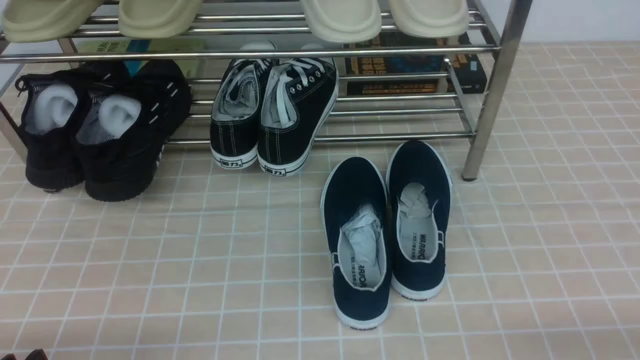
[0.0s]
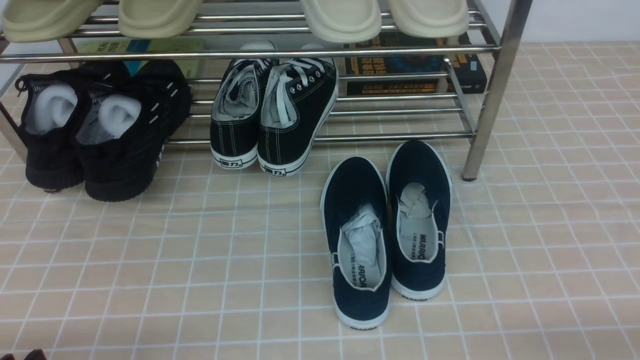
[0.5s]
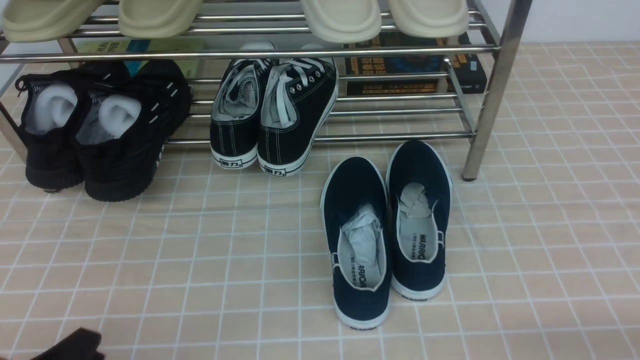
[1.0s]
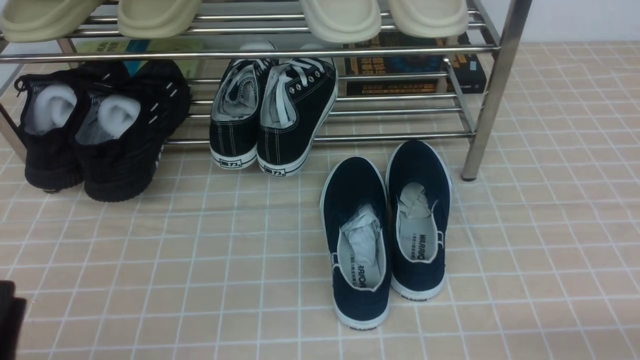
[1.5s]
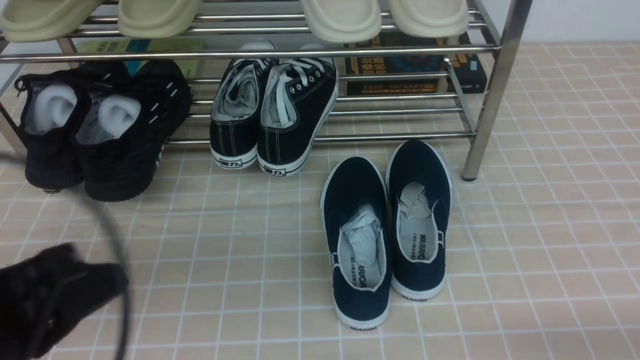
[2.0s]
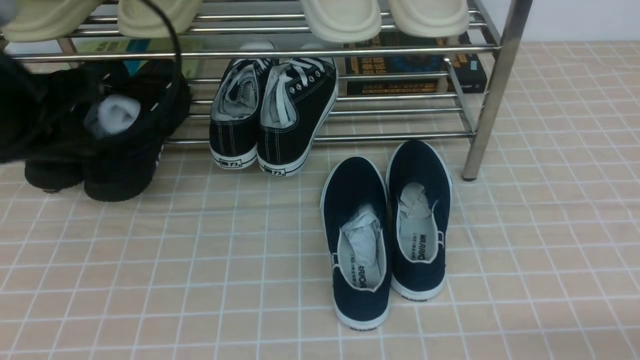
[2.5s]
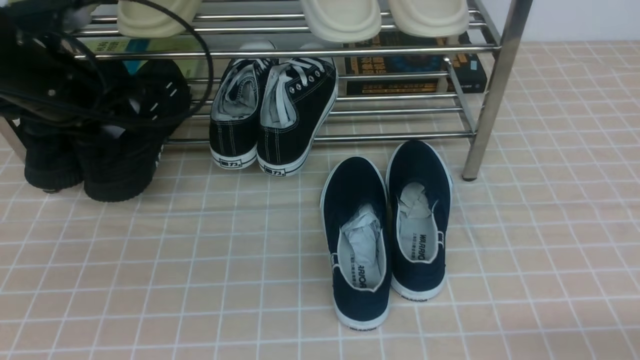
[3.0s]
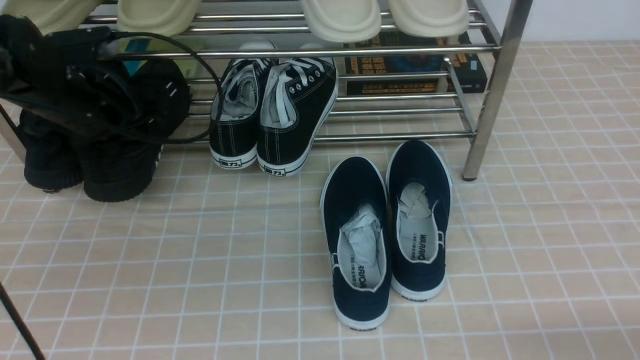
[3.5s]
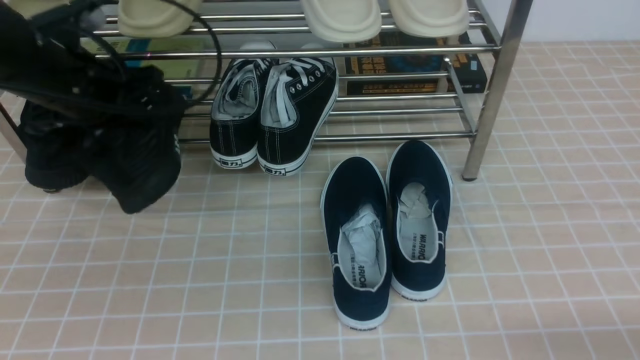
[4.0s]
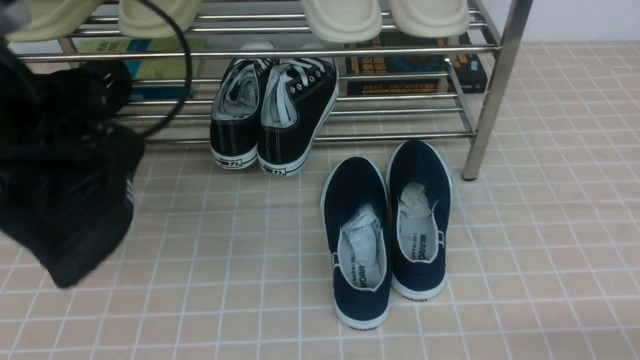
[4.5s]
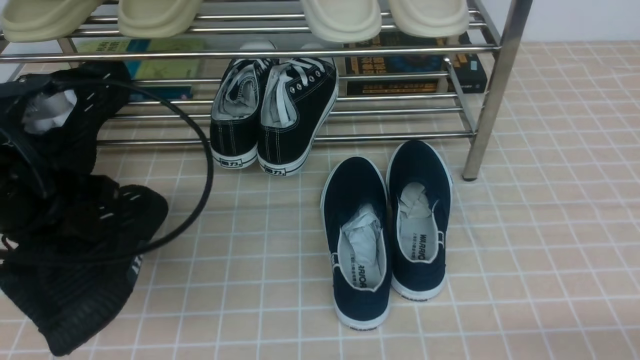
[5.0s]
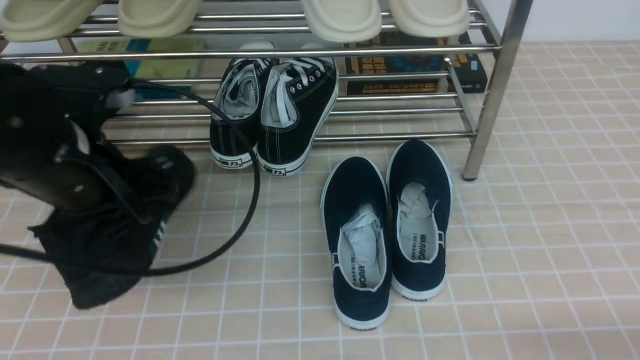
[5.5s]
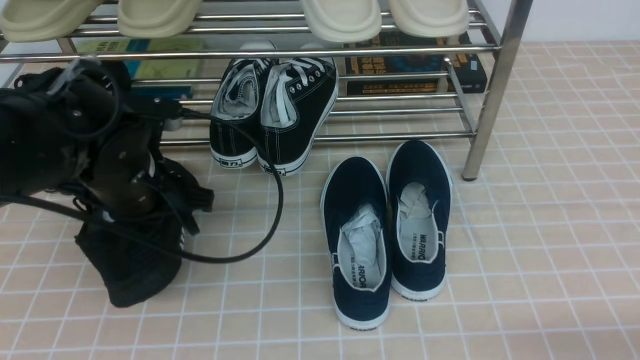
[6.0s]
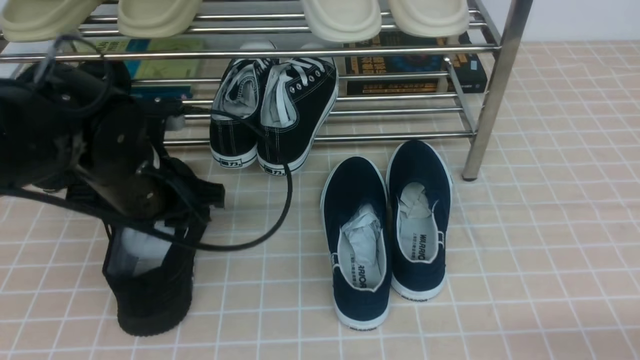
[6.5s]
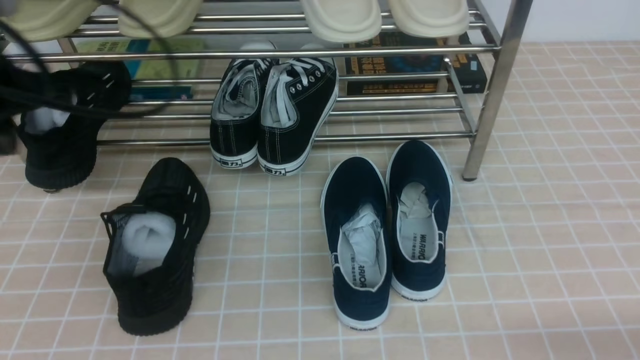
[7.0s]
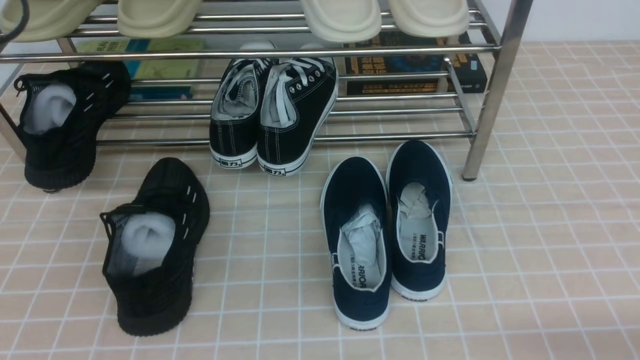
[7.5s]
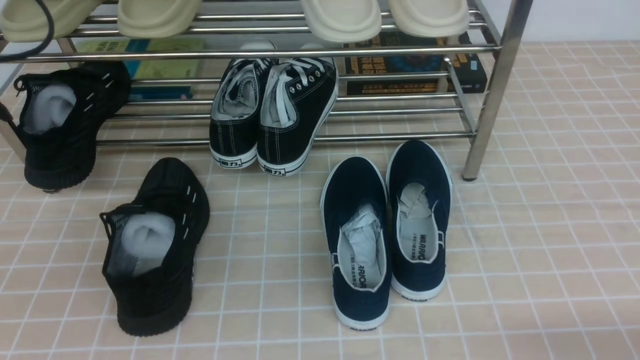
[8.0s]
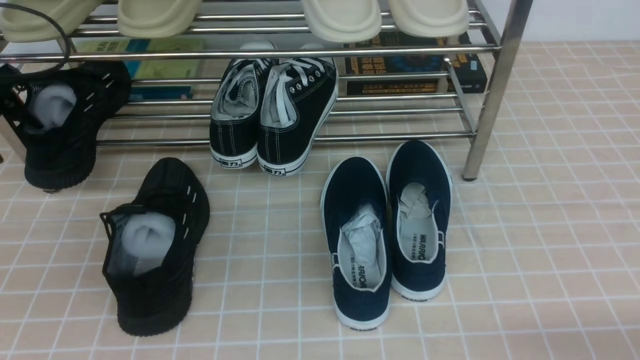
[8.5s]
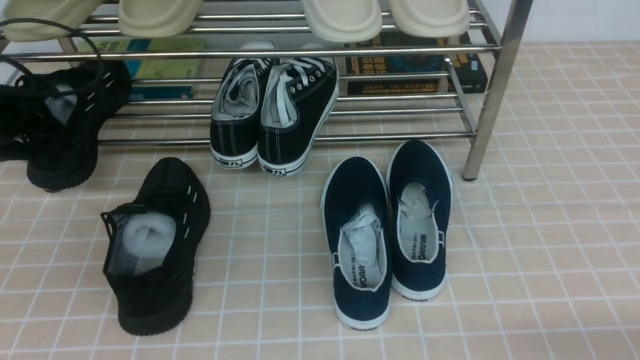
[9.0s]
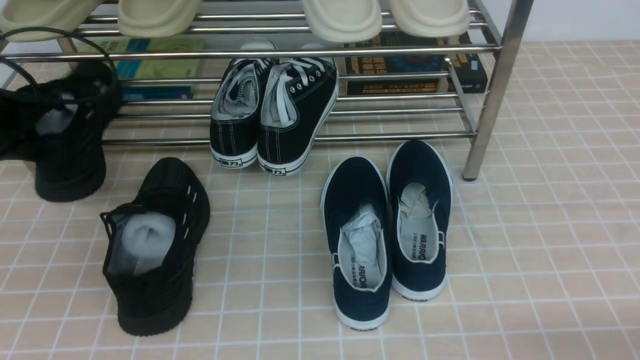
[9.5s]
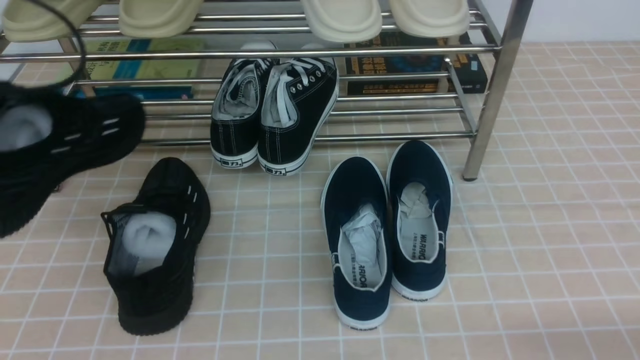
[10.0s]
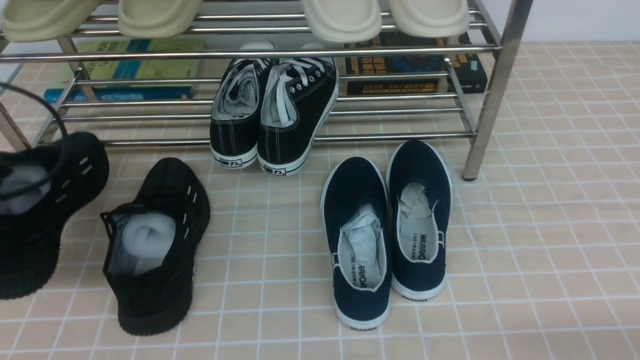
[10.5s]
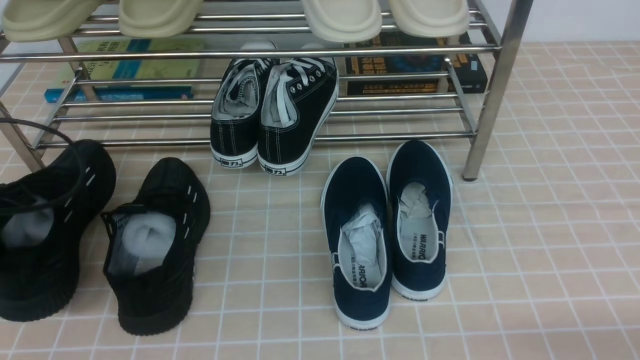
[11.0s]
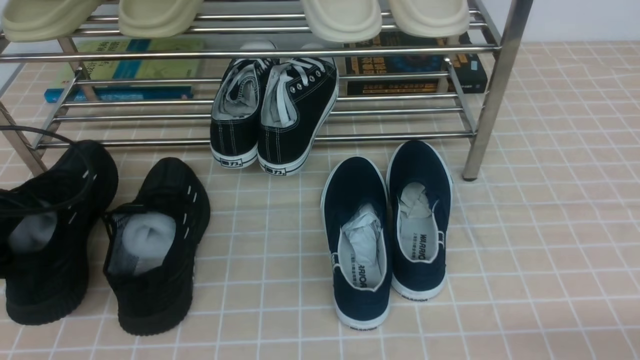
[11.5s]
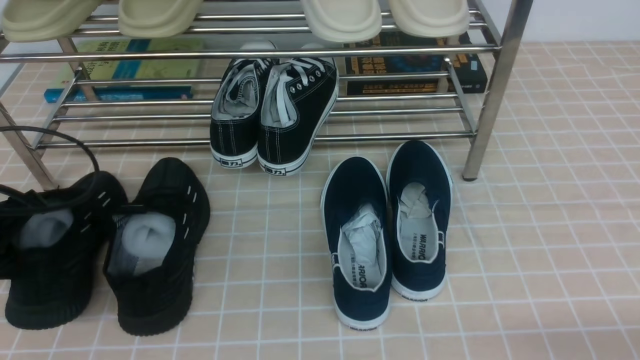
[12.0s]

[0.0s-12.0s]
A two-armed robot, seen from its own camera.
Step, 0.0s to 3.5s: use the left arm to clamp a shoe on the left side of the shoe rack.
Step, 4.0s to 6.5s: Use your left arm to remove the clamped shoe from the shoe rack and put it down.
Step, 7.0s to 9.0s: use the left arm to clamp a shoe on the left side of the shoe rack.
0.0s to 2.0s: The left gripper goes roughly 15 cm upward and forward, and closes its fingers.
2.0s to 4.0s: The left gripper shifts approximately 25 cm forward, and opens, then closes again.
4.0s to 6.0s: The left gripper goes roughly 10 cm to the right, downward and backward.
6.0s to 8.0s: The left gripper is displaced to the left and upward by roughly 20 cm, and opens up.
8.0s to 10.0s: The left gripper travels backward by some 5 cm, and closes.
10.0s to 12.0s: The left gripper is displaced downward by approximately 10 cm.

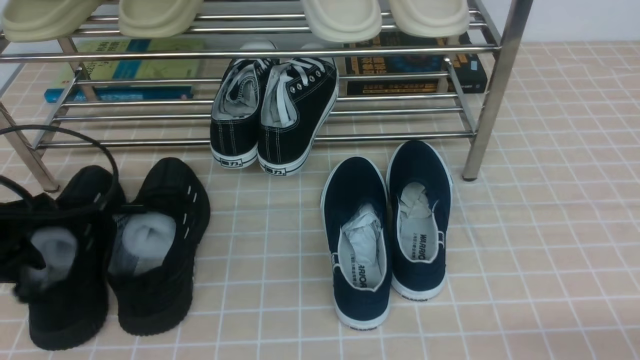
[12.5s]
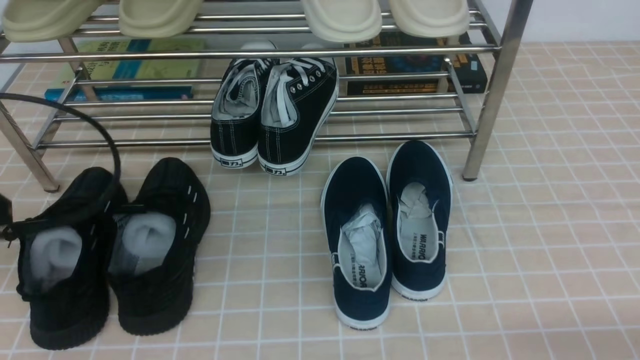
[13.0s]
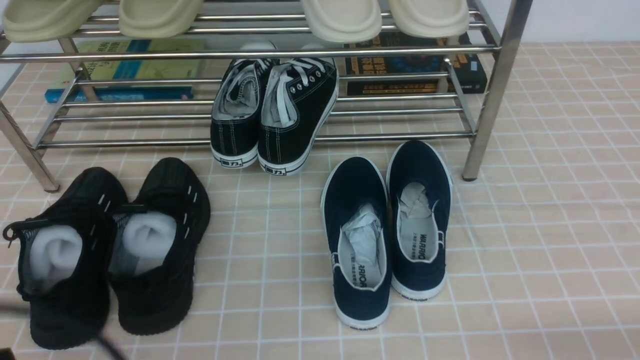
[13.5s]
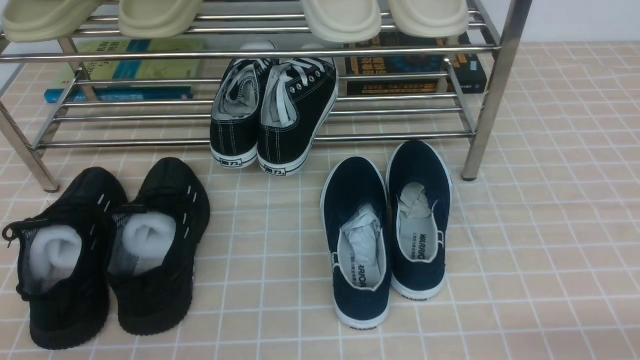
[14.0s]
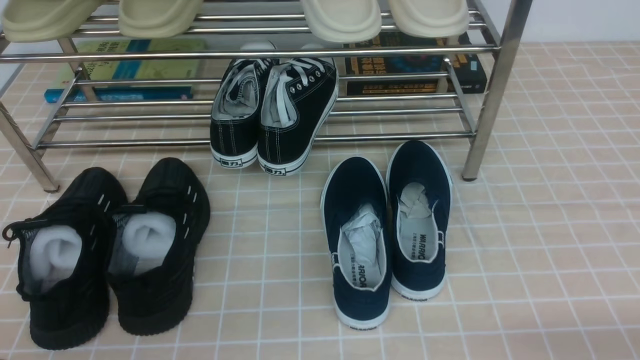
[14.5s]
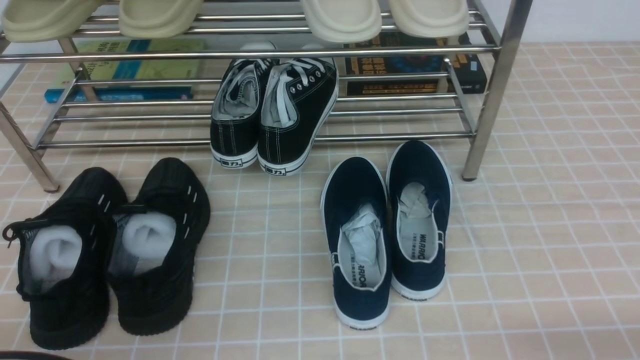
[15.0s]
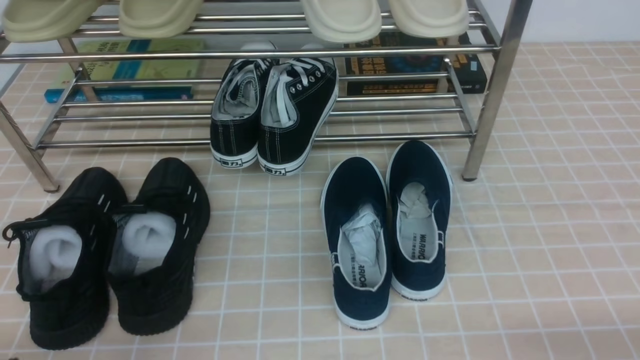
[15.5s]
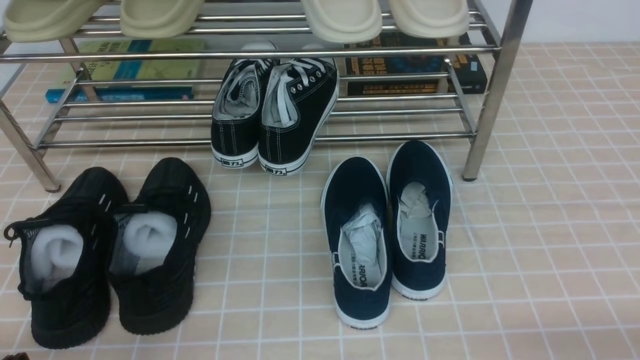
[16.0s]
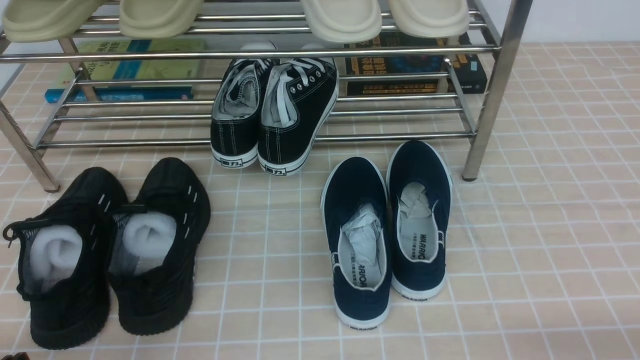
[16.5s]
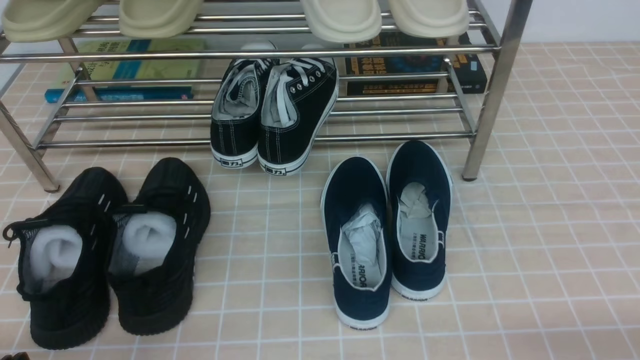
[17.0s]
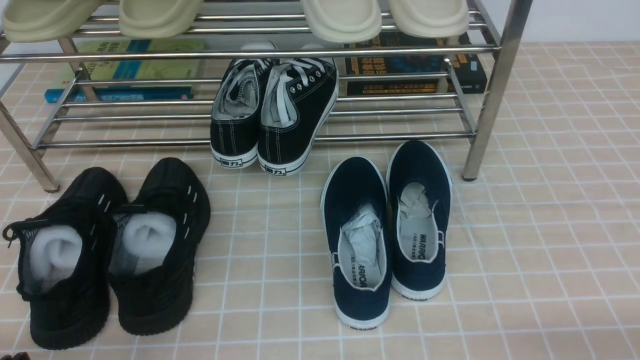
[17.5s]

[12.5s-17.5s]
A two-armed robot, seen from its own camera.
12.5s to 15.0s: The left gripper heads backward, covering roughly 20 cm.

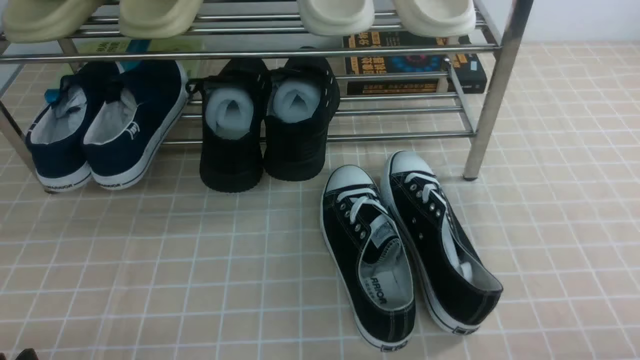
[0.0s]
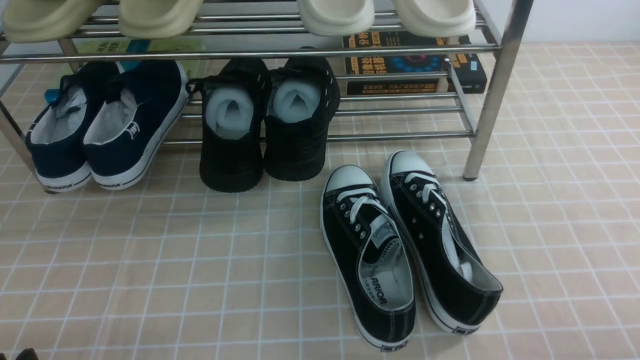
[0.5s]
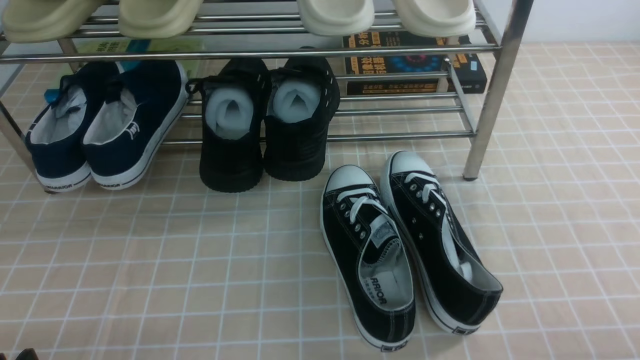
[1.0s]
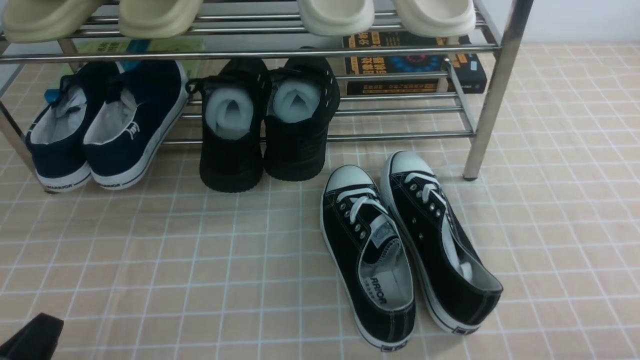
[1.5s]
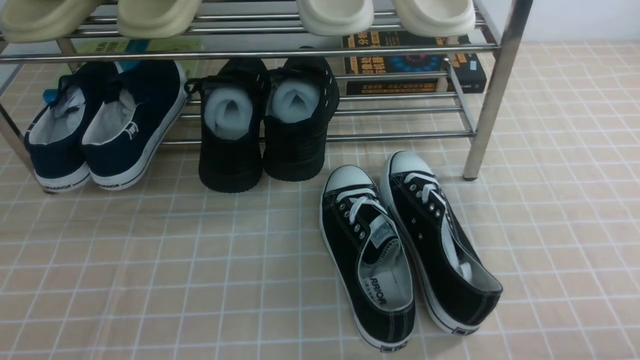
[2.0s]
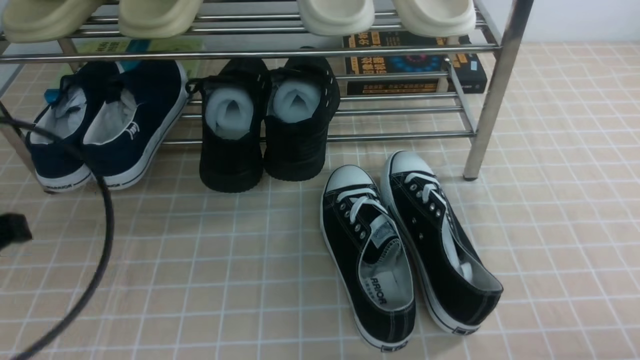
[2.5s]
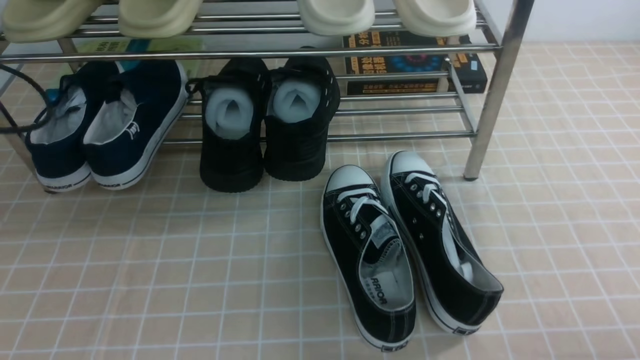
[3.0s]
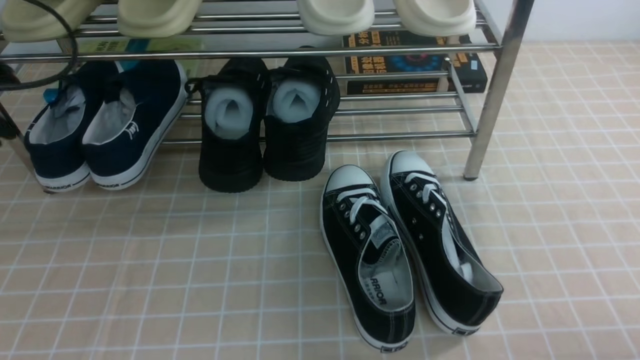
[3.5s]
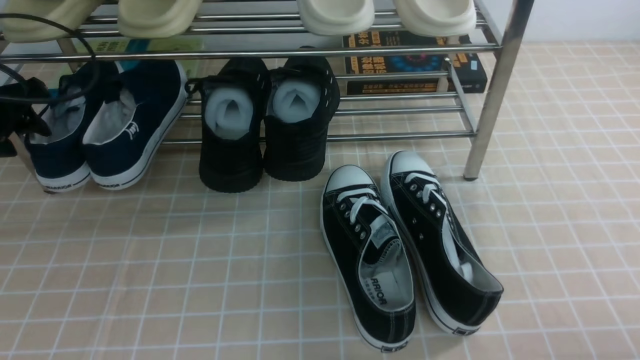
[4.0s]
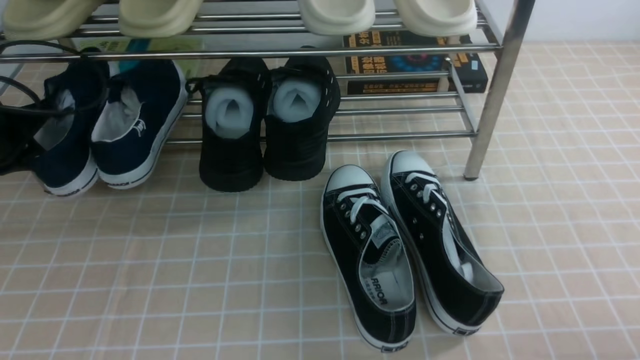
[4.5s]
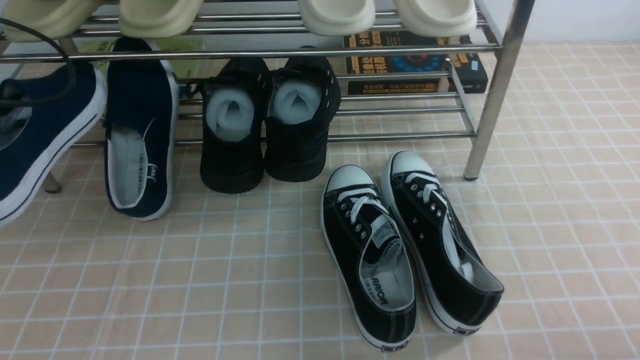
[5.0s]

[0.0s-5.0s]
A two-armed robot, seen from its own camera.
Step, 0.0s to 4.0s: use the left arm to clamp a shoe on the left side of the shoe rack.
0.0s to 2.5s: The left gripper shifts roughly 20 cm upward and forward, and closes its fingers.
2.5s to 5.0s: The left gripper moves forward and to the left, about 15 cm, and opens, then closes once more.
